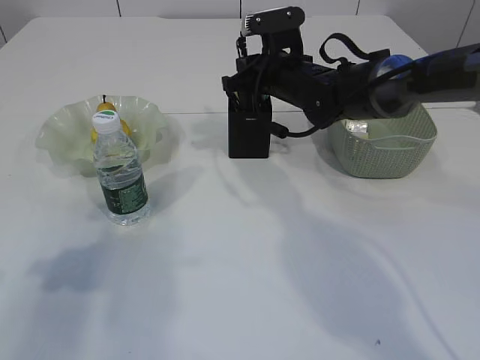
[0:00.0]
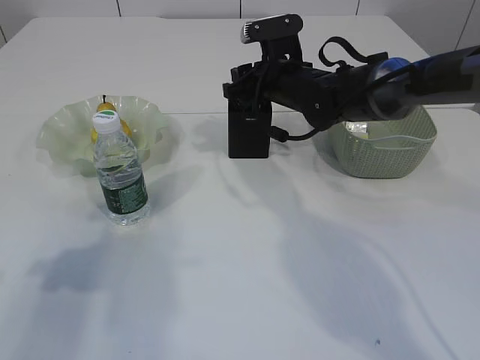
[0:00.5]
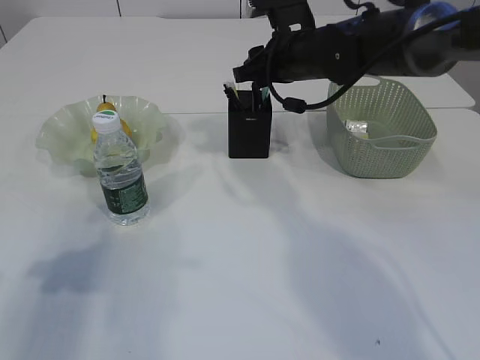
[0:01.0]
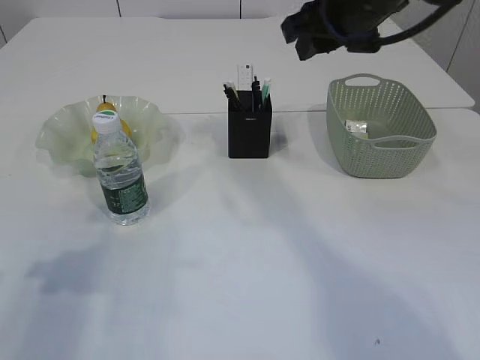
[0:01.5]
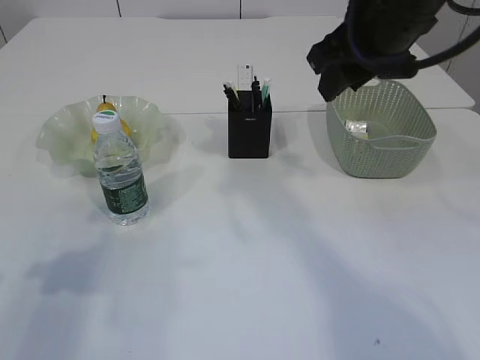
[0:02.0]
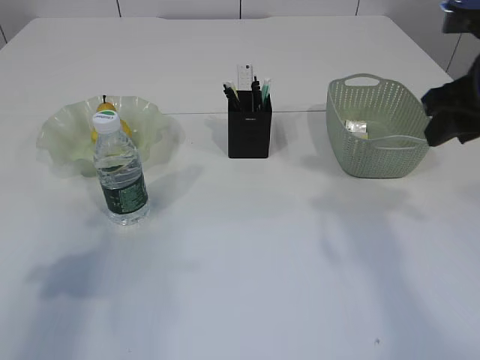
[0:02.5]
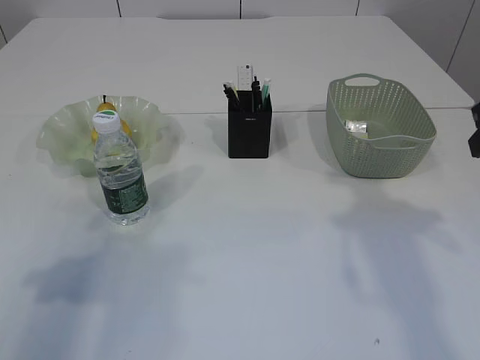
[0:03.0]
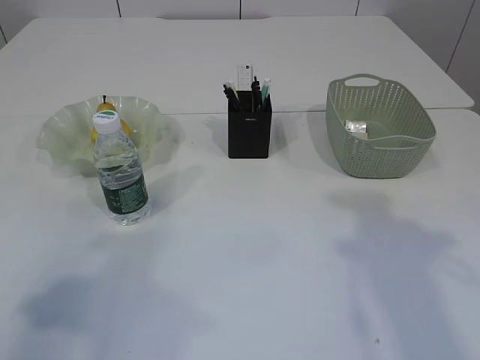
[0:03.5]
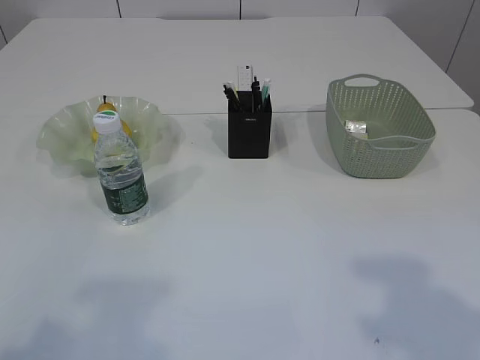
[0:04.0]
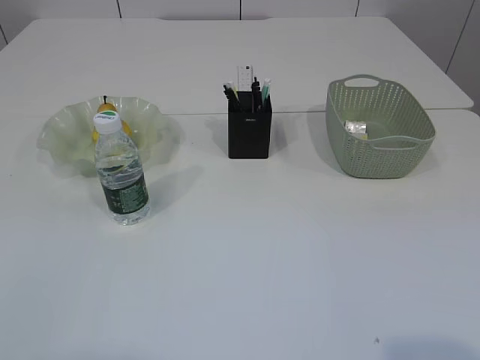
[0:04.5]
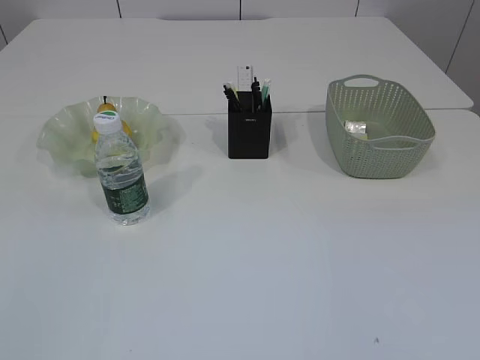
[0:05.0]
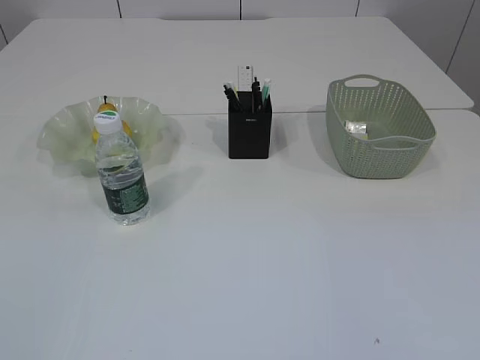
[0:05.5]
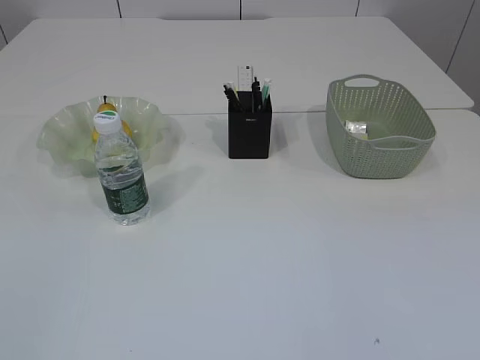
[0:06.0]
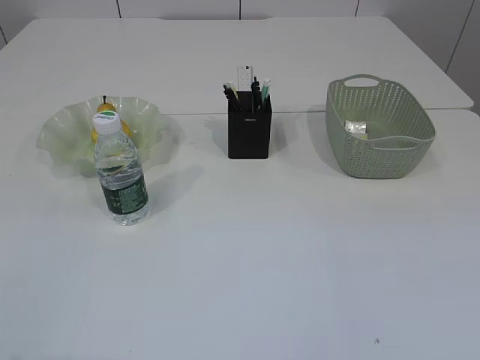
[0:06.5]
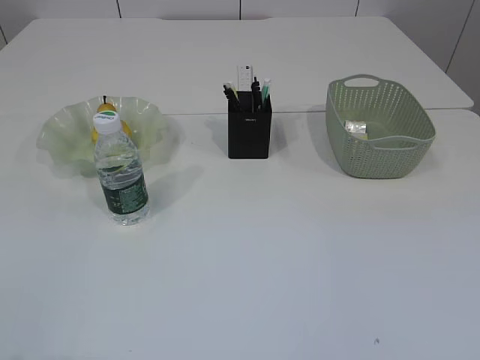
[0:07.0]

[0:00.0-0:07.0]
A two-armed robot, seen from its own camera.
0:00.0 to 0:02.0: The right gripper travels upward and backward by approximately 20 cm, and opens.
0:02.0 to 0:03.5: The right gripper heads backward and to the right, covering about 20 cm. The left gripper is displaced backward and upward by approximately 10 cm.
0:03.5 to 0:05.0: The left gripper shifts some 15 cm backward.

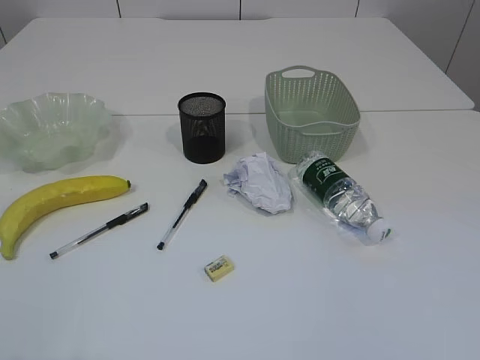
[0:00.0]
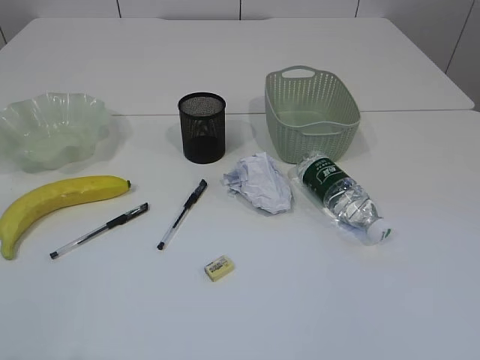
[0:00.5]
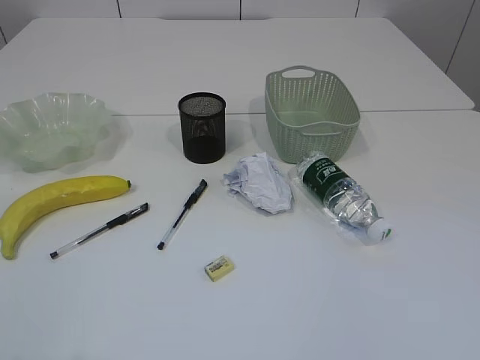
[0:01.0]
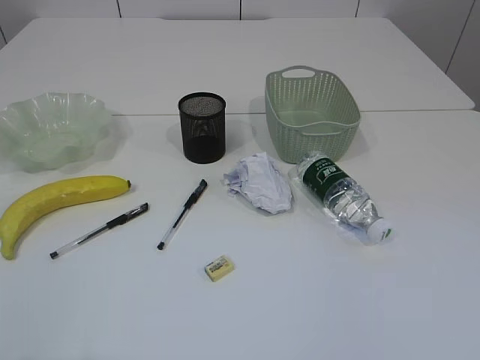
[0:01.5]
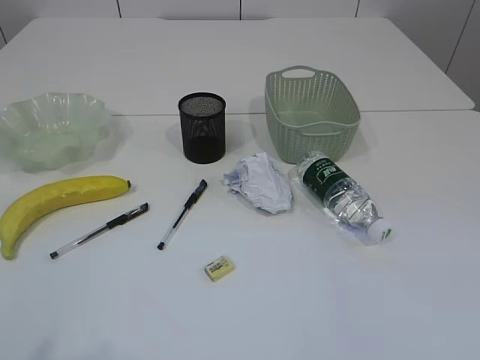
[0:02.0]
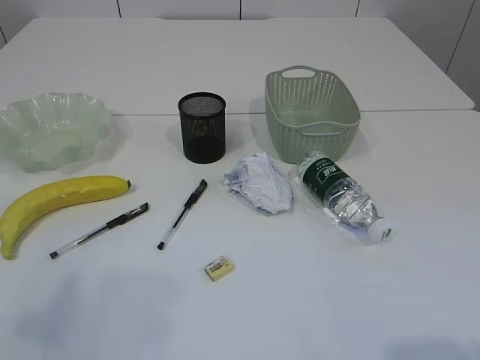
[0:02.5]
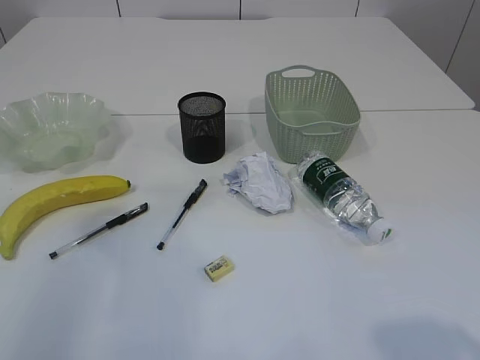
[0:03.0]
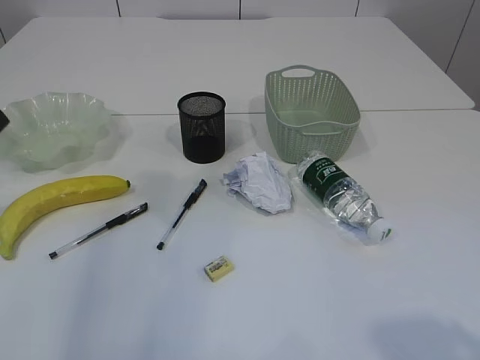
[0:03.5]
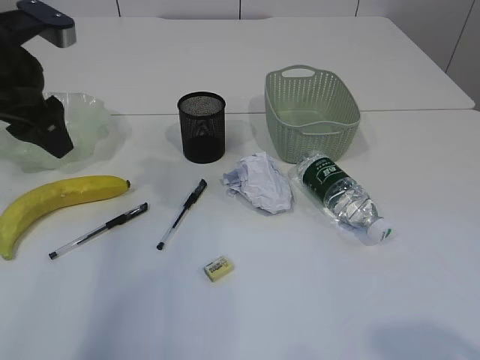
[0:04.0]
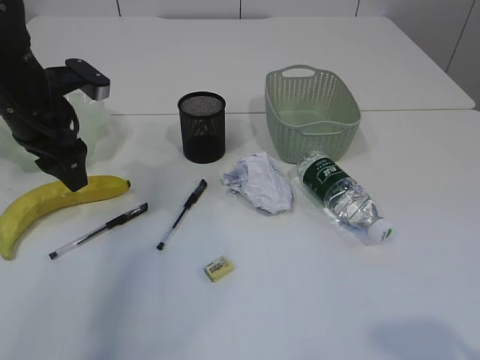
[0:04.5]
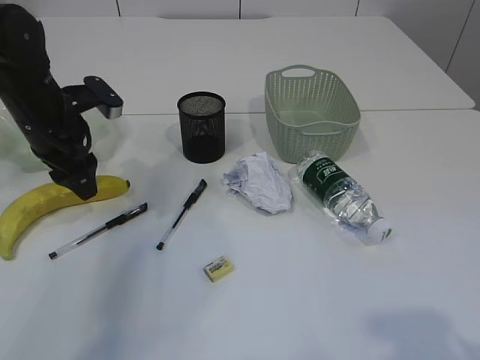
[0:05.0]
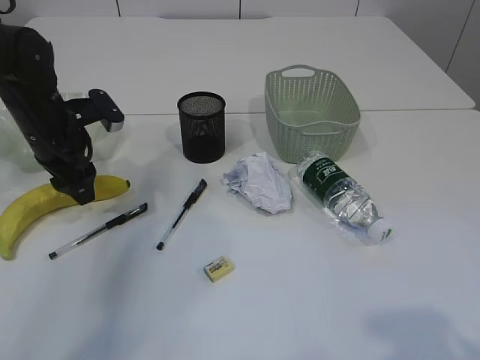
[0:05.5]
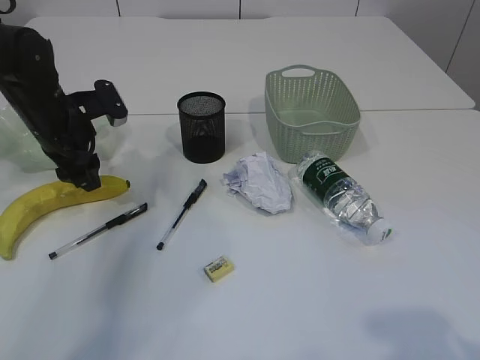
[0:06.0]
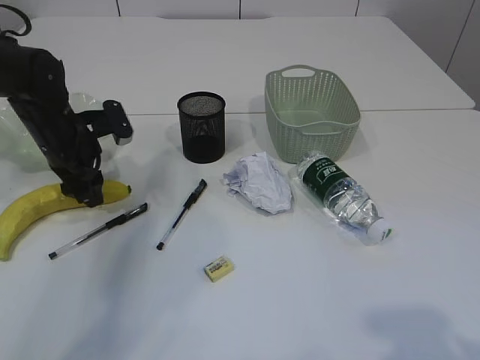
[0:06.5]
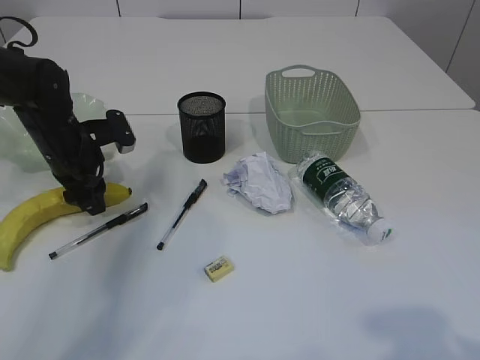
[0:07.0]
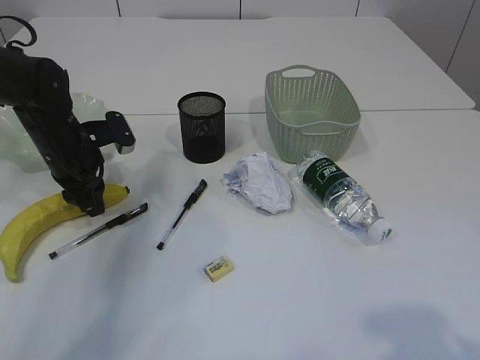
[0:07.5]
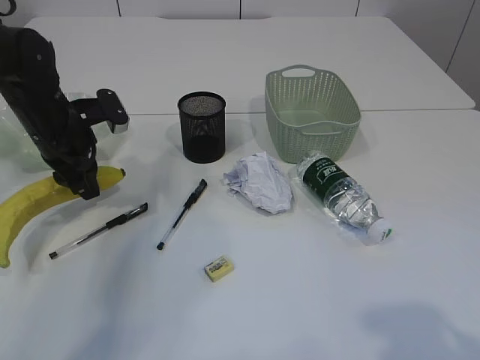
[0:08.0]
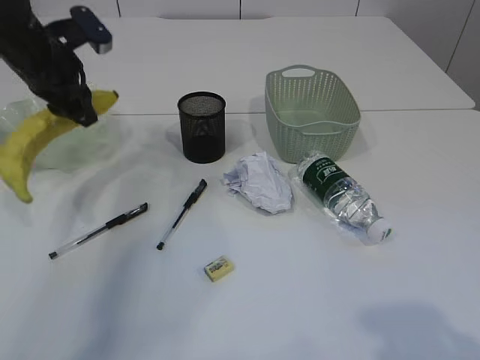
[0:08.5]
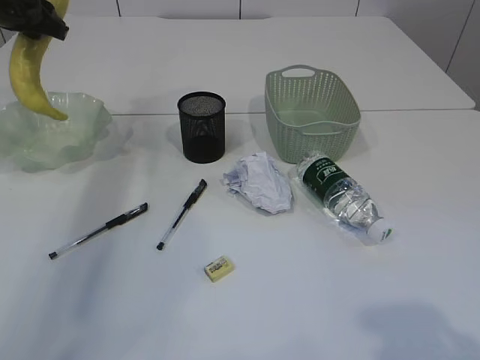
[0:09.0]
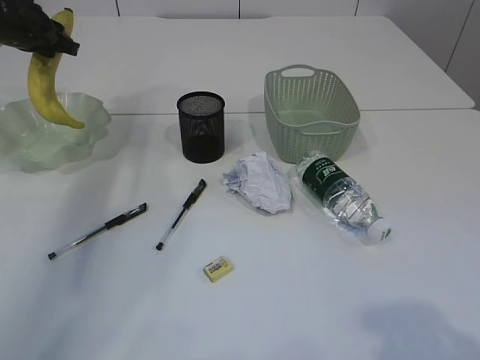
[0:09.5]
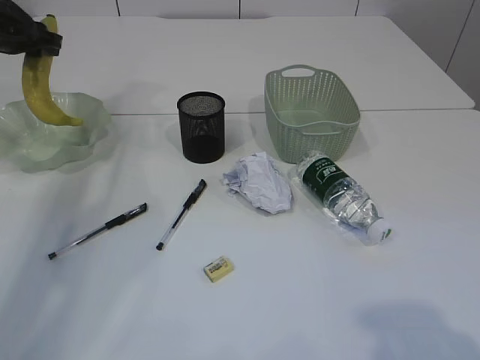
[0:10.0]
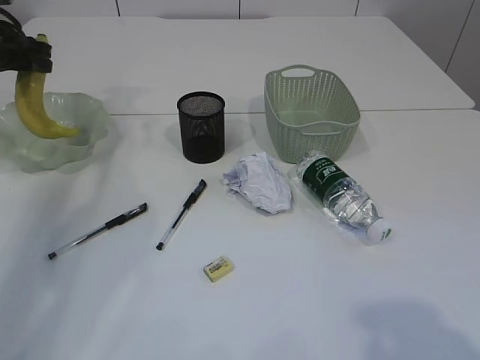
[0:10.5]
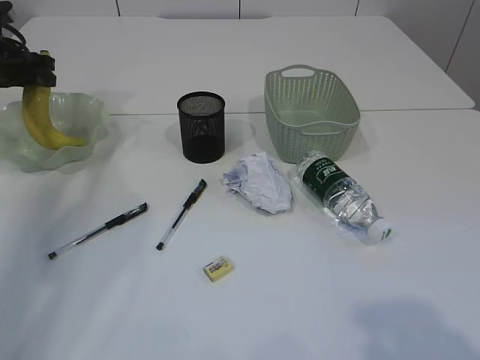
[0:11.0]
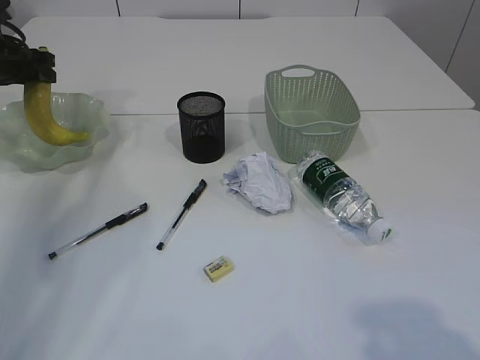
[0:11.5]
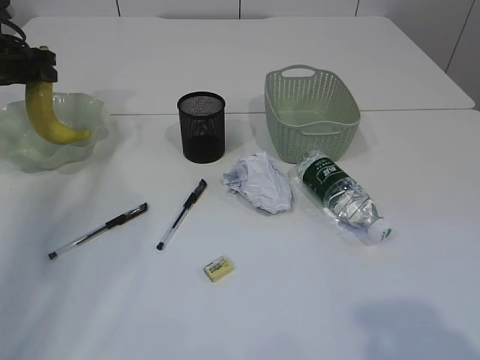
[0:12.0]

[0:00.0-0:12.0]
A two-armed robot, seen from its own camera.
0:02.0 to 0:04.0: The right gripper goes some 5 cm forward. Meanwhile the left gripper travels forward by some 35 cm.
0:04.0 to 0:06.0: The left gripper moves downward and forward, some 15 cm.
0:06.0 to 0:08.0: The grippers stay close to where they were, moving slightly.
0:08.0 to 0:10.0: The left gripper shifts about 20 cm forward, to the left and upward.
0:10.0 to 0:12.0: The grippers make only small movements.

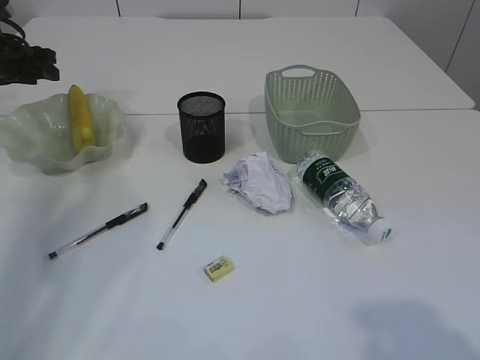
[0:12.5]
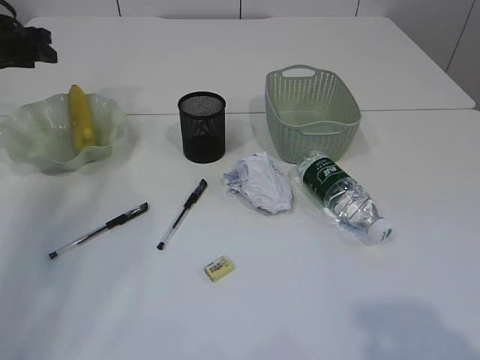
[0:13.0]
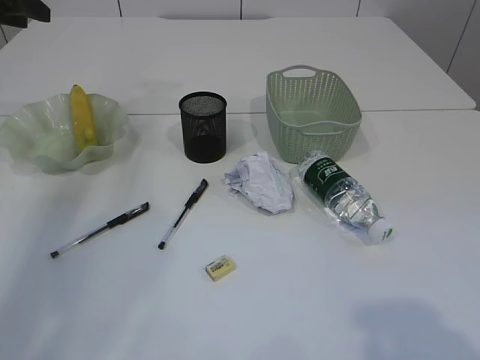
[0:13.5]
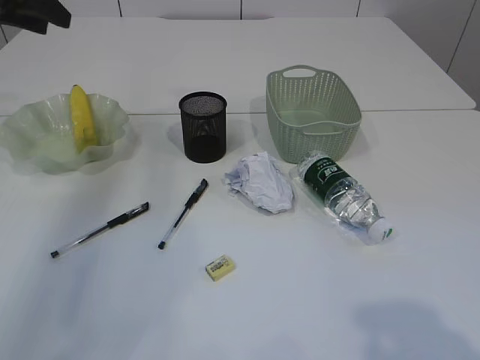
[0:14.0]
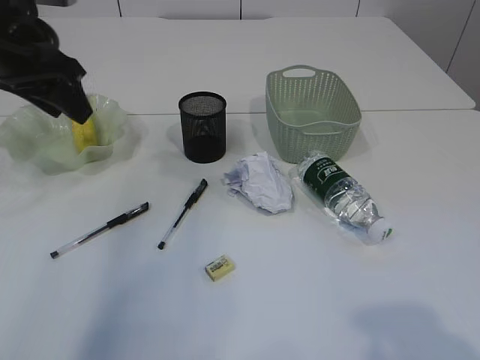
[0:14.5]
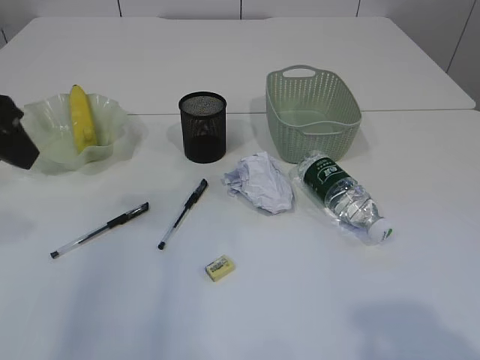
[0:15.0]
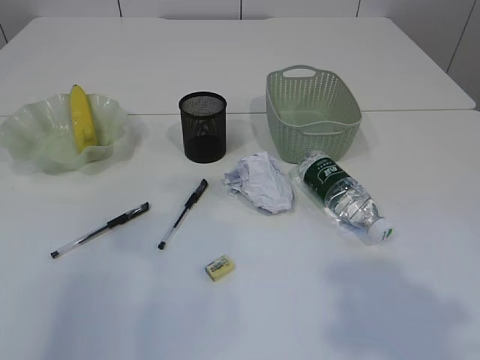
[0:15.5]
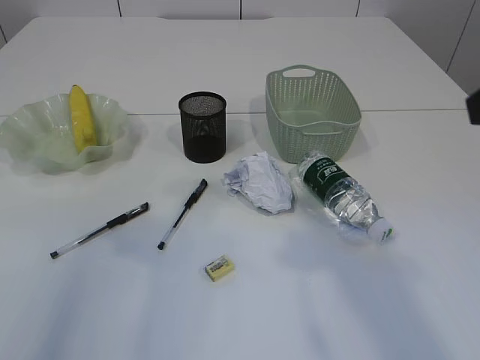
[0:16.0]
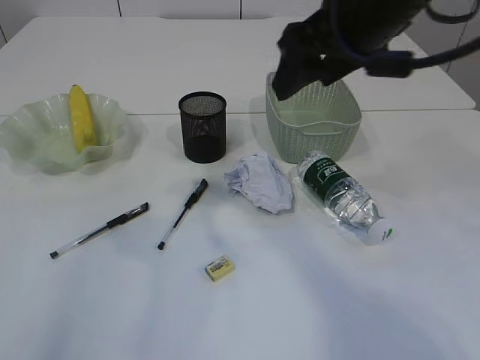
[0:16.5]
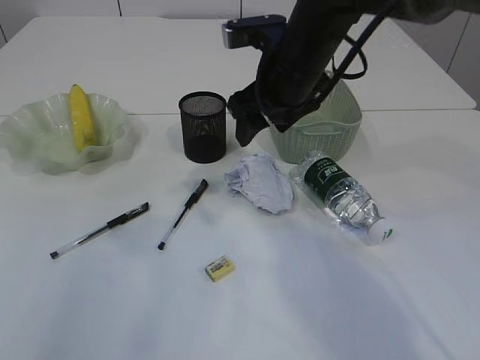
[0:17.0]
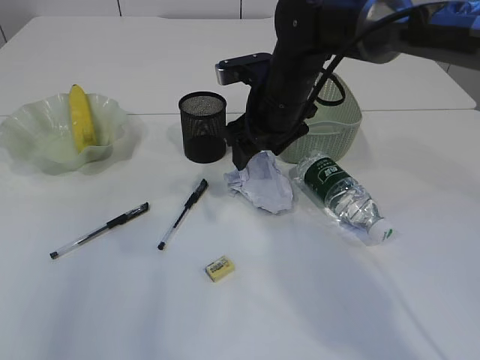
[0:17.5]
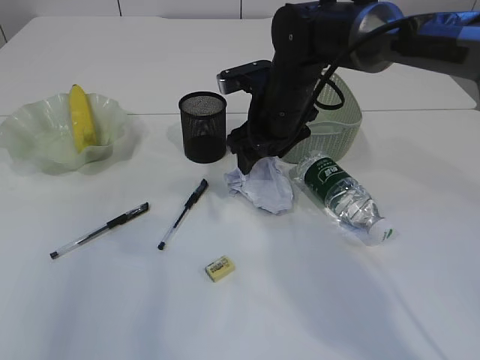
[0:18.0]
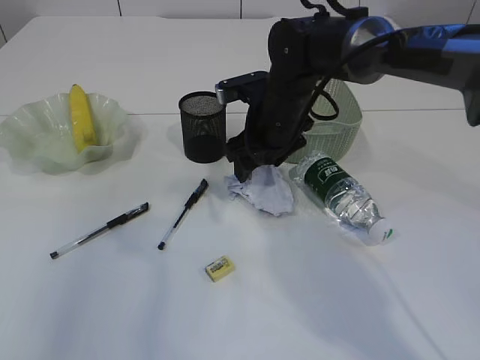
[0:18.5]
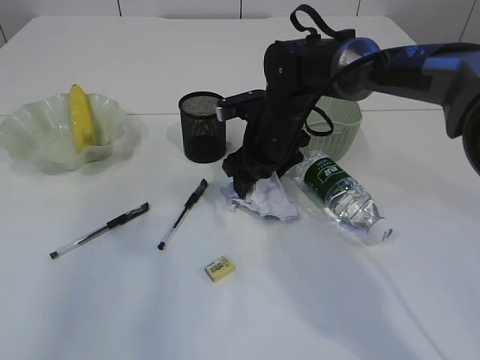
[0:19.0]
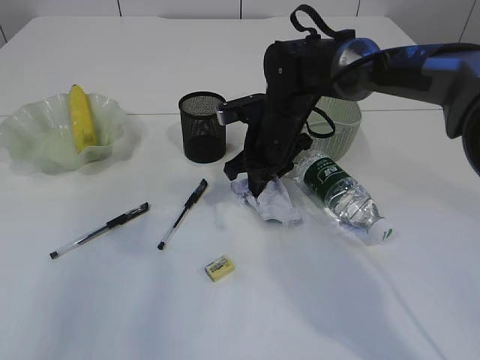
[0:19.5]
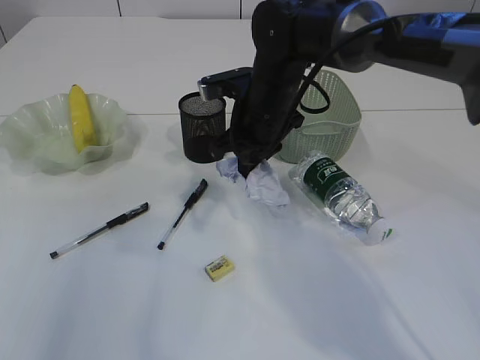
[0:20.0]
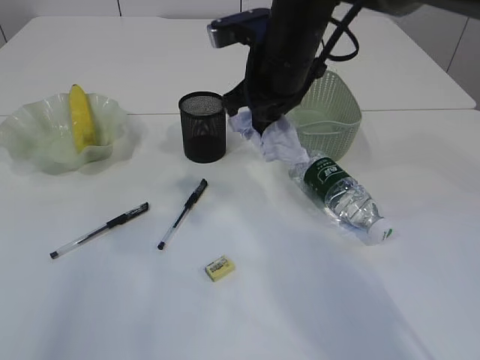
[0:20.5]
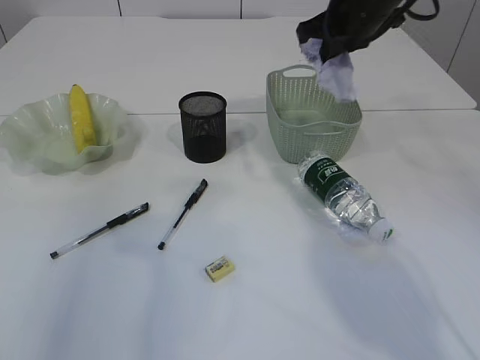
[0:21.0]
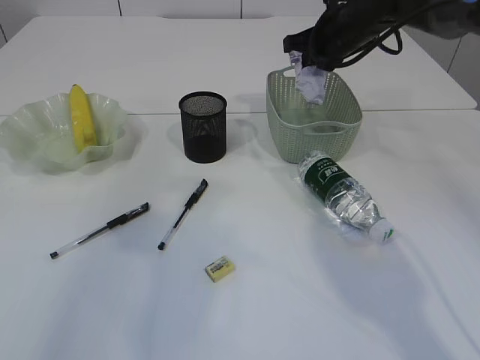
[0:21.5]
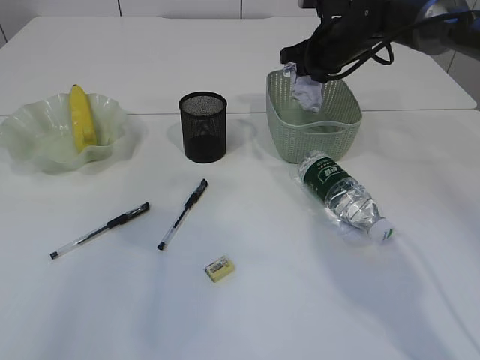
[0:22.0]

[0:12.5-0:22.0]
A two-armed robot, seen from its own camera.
Step, 0:13.5 to 0:20.0: Pick up the waste paper.
0:12.5 to 0:14.5: The left gripper is displaced backward, to the right and upward by approximately 25 cm.
0:14.5 to 0:16.5: The left gripper goes some 20 cm backward. Meanwhile the right gripper moves forward and to the left, some 30 cm.
0:16.5 to 0:18.0: The right gripper heads downward and forward, covering roughly 20 cm.
0:18.0 to 0:20.0: The right gripper closes its fingers.
0:20.0 to 0:22.0: The right gripper travels to the right and forward by some 15 cm.
